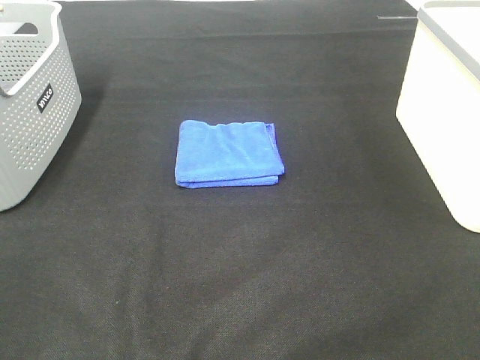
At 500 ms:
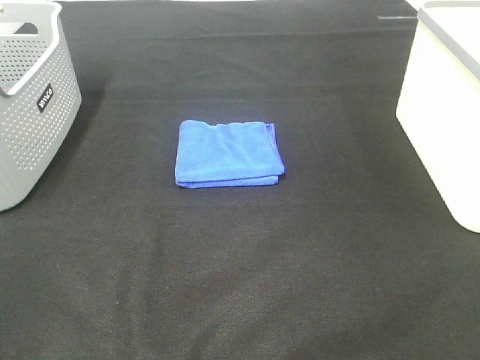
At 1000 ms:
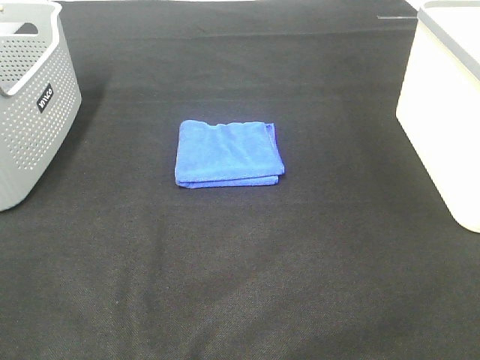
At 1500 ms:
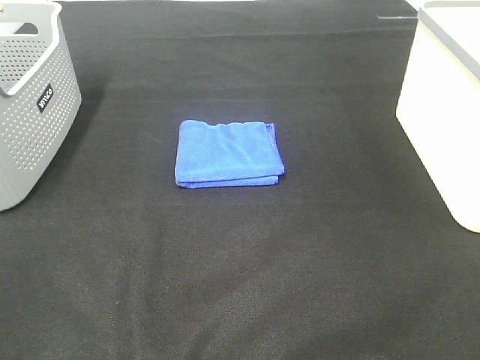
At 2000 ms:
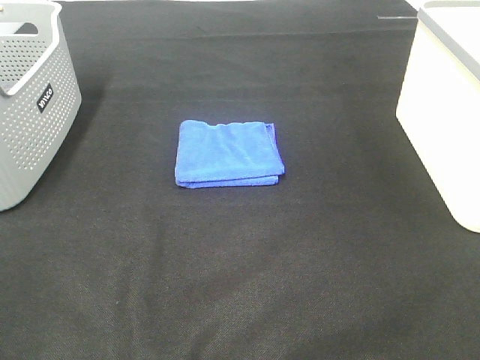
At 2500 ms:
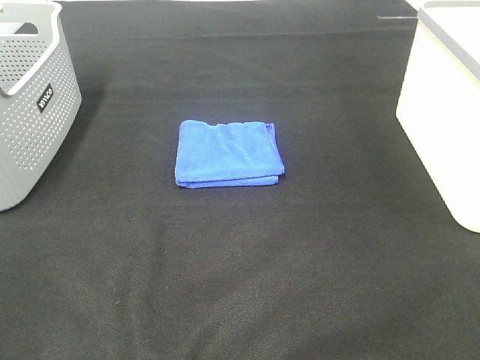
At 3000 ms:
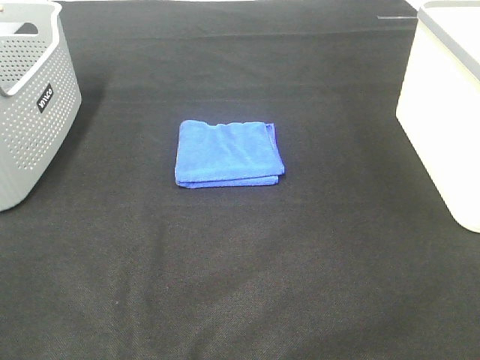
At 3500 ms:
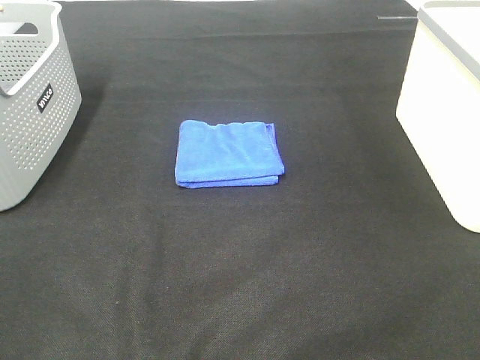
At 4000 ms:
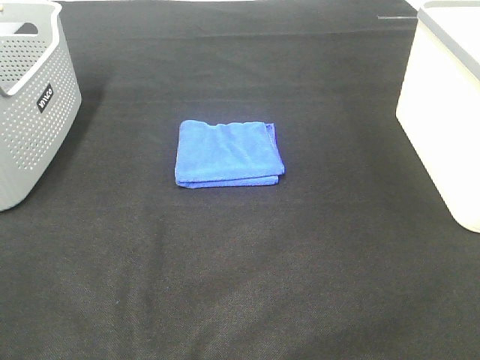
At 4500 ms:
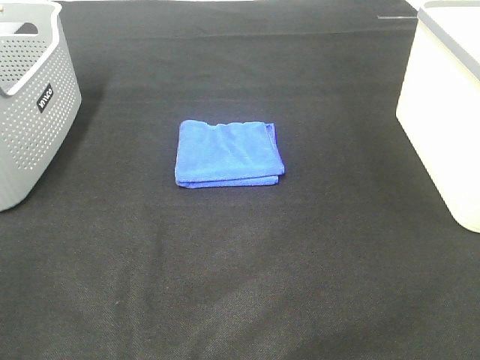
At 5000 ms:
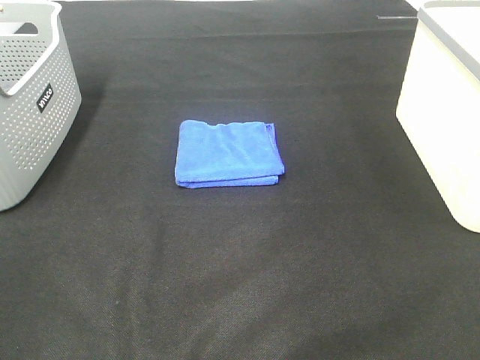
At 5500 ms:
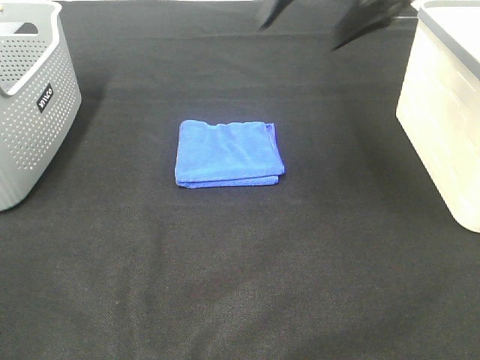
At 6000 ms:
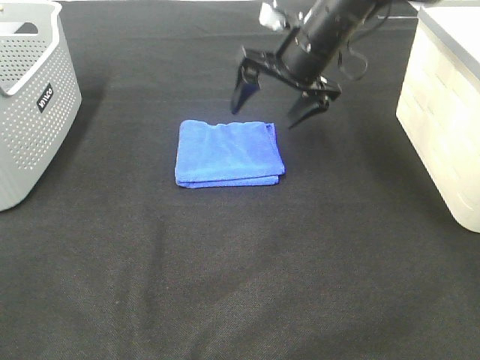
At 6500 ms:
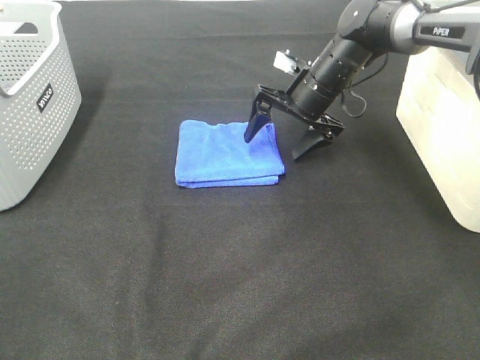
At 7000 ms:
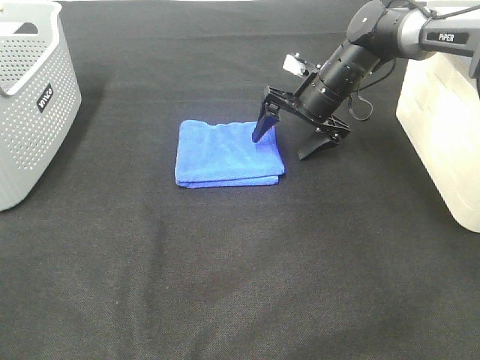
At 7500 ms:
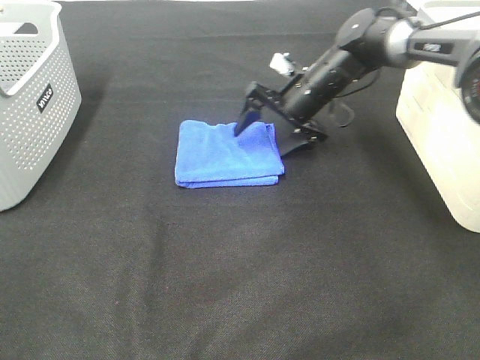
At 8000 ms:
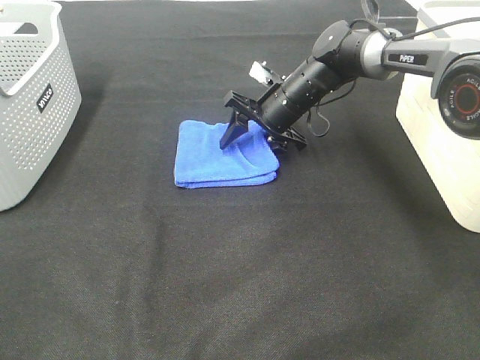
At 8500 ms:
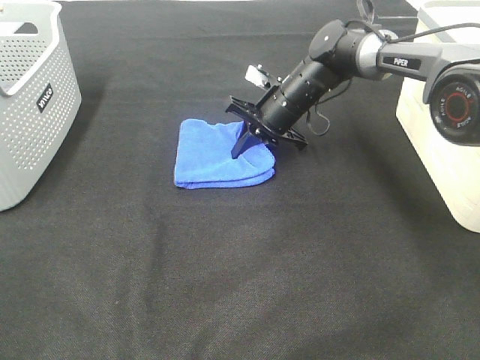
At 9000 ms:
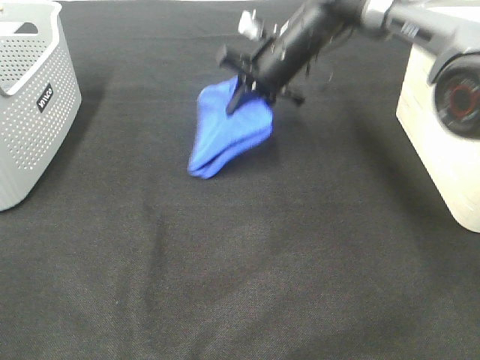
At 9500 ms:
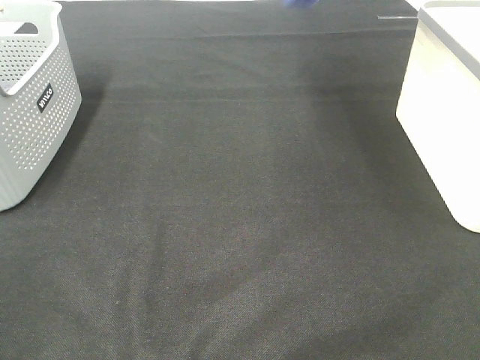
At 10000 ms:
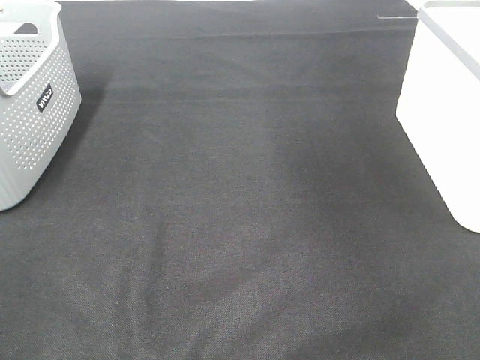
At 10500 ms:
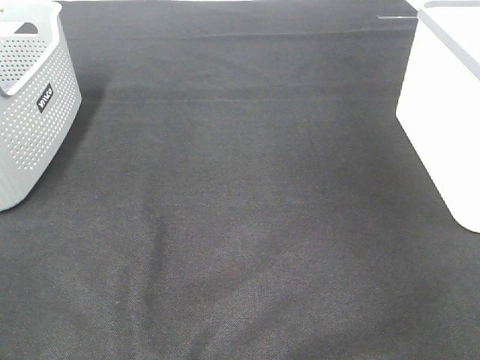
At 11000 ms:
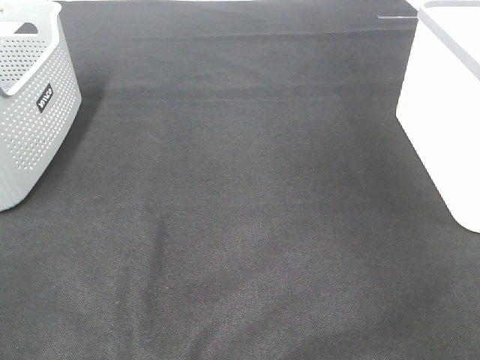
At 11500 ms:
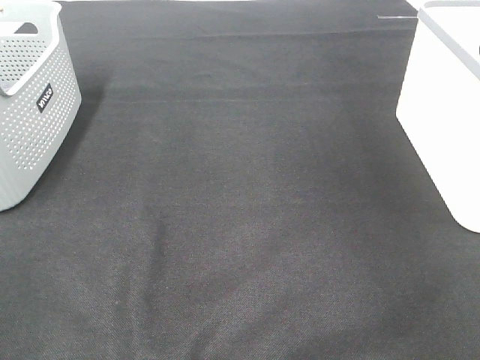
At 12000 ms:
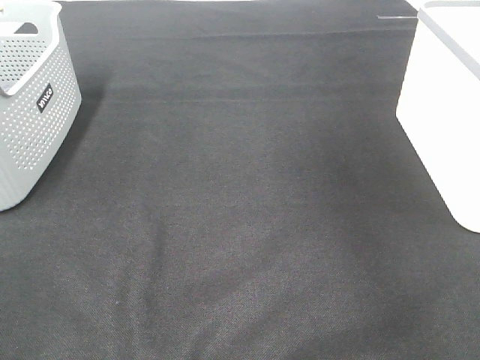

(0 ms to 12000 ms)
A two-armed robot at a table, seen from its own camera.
Step, 0 ms - 8000 ms: Right hand: grab the folded blue towel.
Step, 8500 ms - 11000 ms: Right hand: place the blue towel in right basket.
0 ms - 2000 ms: Both grippers stay about where they are.
4000 ms - 6000 ms: The right gripper goes about 40 cm forward and to the left.
6000 ms - 8000 ms: The right gripper travels downward by roughly 10 cm, and closes its fingers.
8000 ms - 10000 ms: The right gripper goes approximately 50 cm upward and to the right, and closes up.

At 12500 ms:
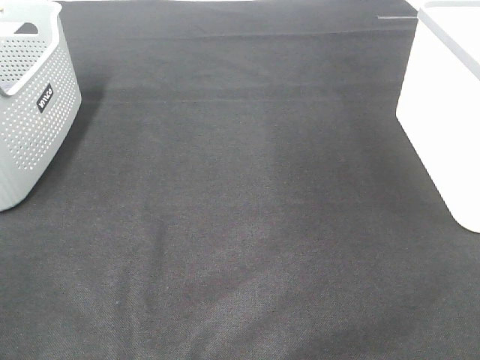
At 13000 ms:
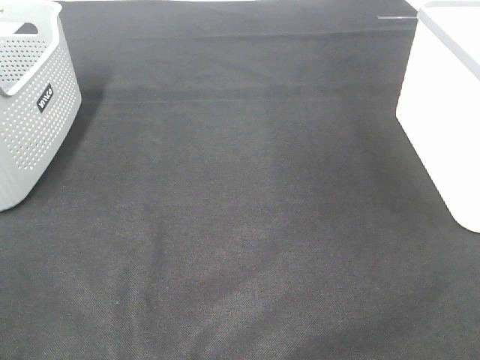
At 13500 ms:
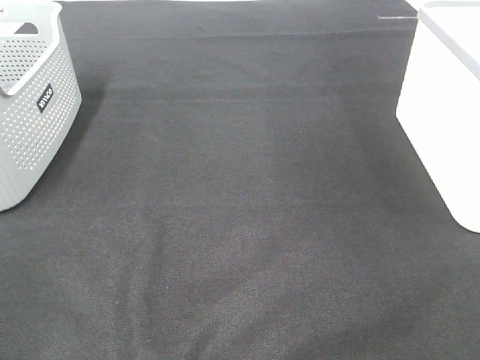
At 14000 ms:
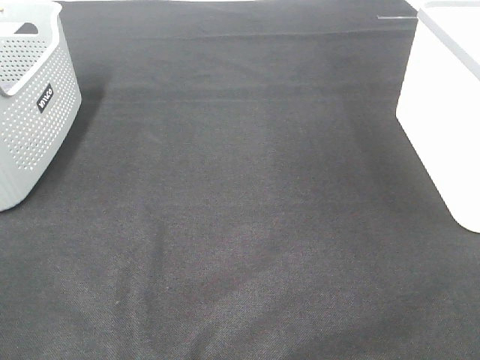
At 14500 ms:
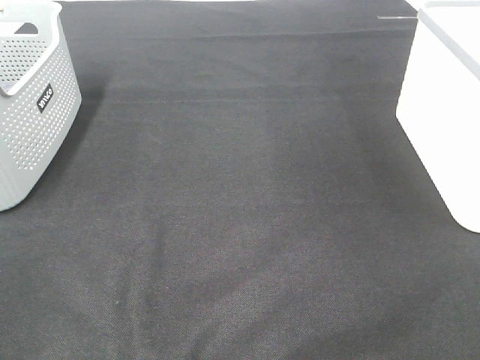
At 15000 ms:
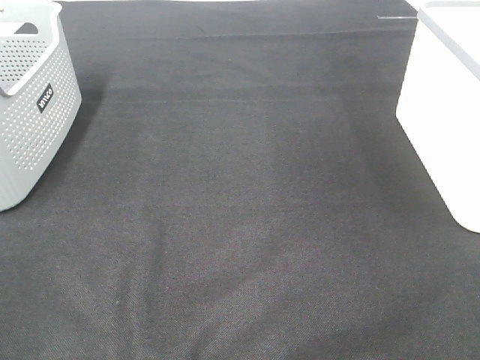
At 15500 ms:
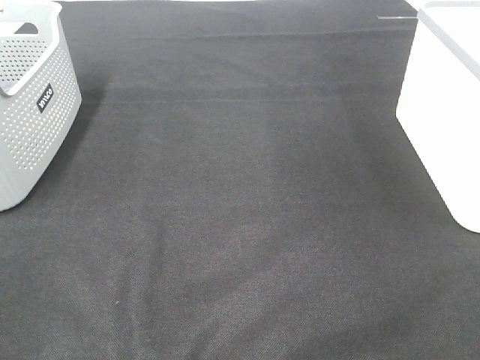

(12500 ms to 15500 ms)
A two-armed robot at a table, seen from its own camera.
14000 ms - 15500 ms: Neither gripper changes place.

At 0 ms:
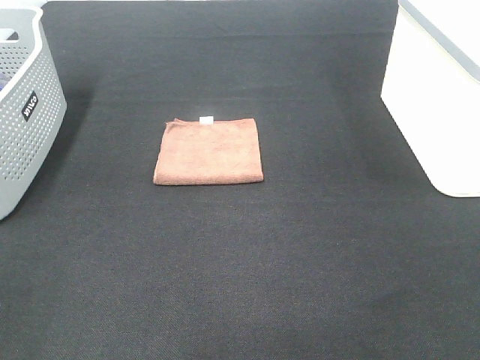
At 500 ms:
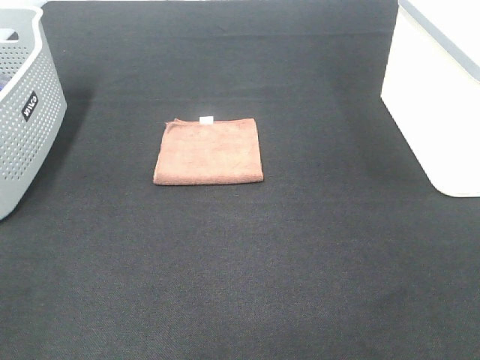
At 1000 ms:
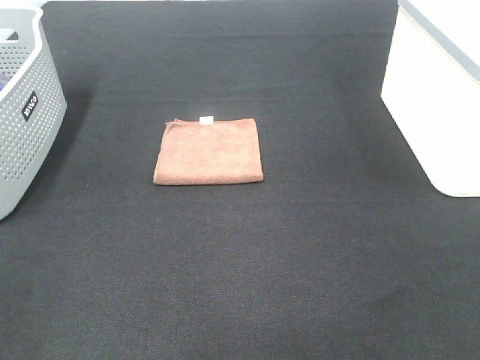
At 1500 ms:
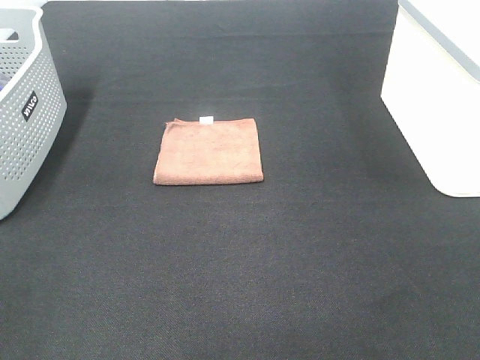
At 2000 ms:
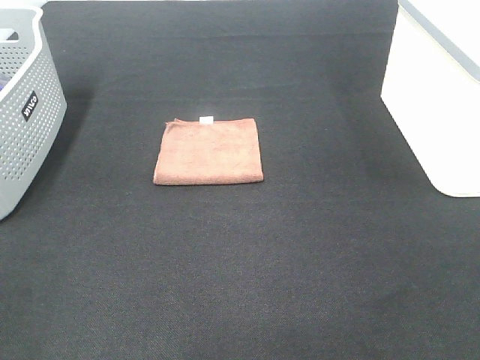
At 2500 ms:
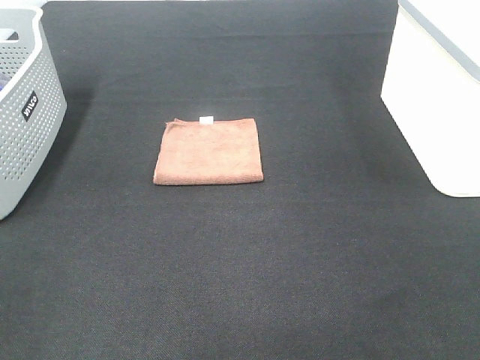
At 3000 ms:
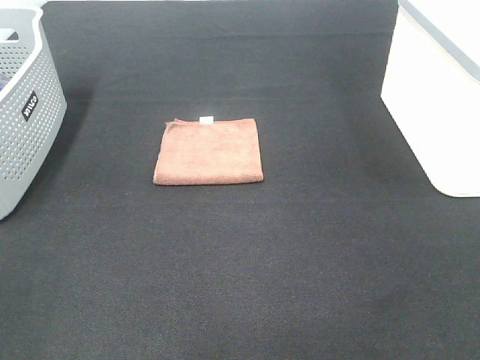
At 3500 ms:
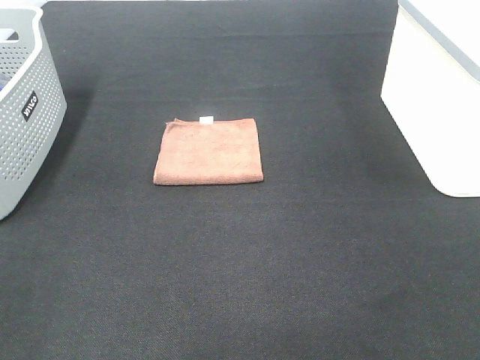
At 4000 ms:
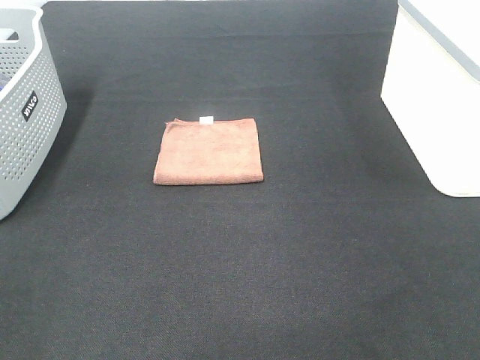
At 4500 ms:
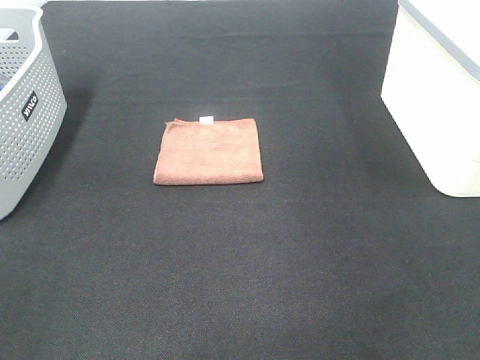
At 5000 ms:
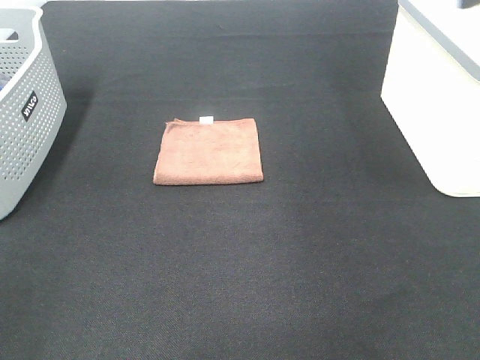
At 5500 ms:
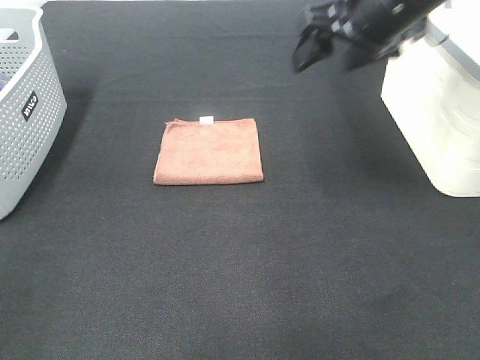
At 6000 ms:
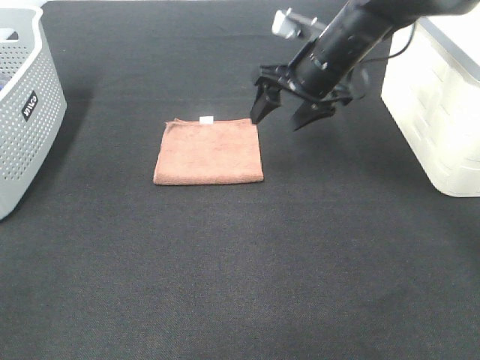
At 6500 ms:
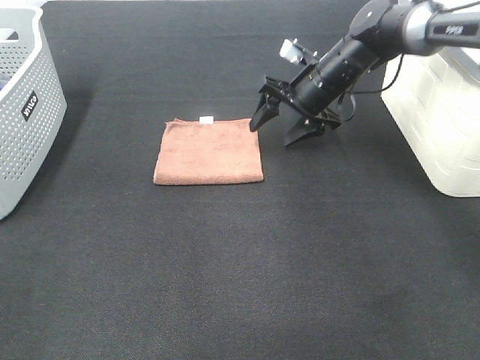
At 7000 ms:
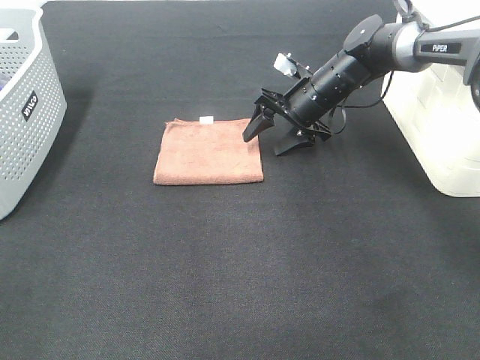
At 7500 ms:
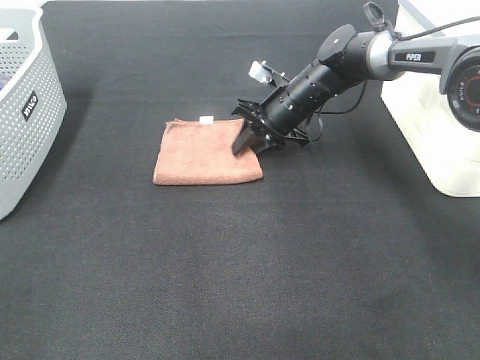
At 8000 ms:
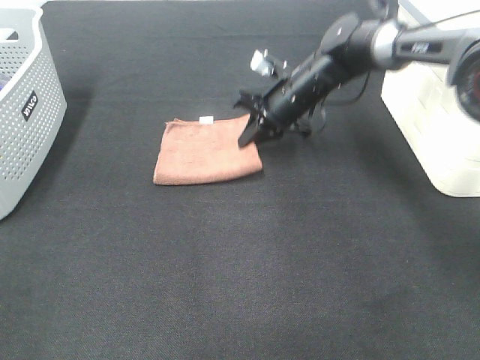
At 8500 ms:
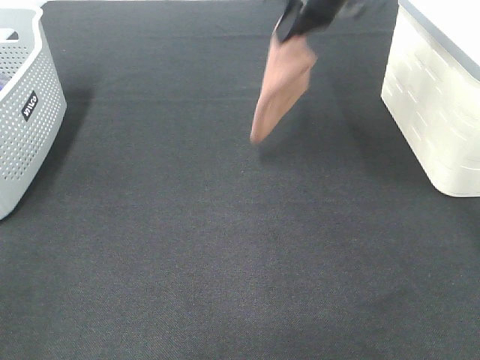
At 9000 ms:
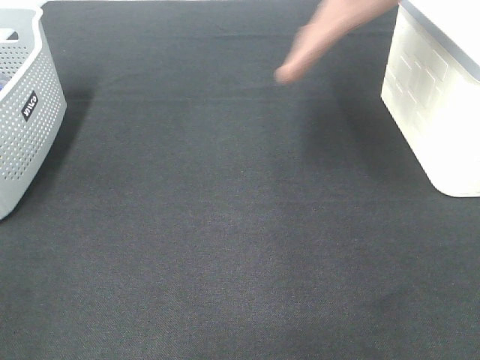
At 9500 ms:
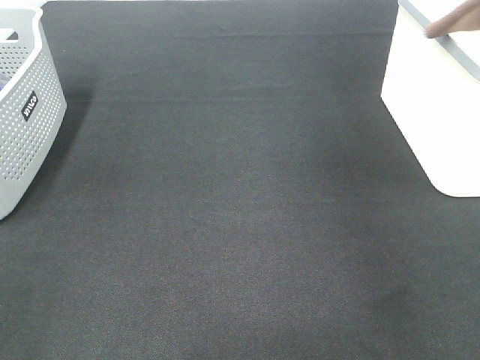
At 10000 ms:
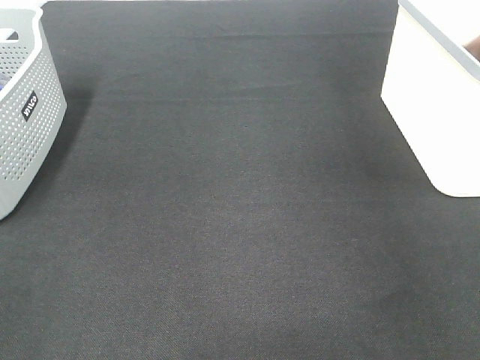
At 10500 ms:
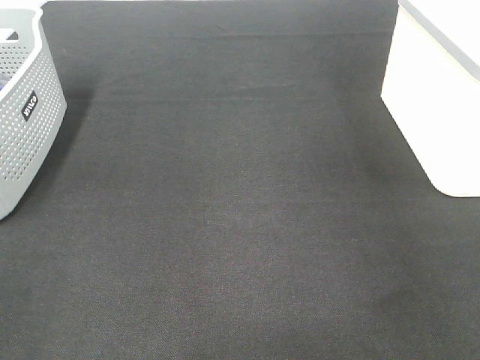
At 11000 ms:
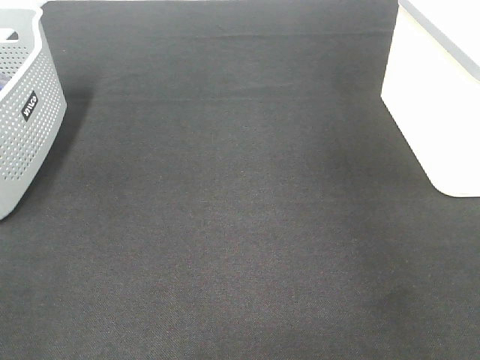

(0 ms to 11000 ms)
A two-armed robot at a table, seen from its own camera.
Step, 0 ms - 7500 ms: Right hand: grab the folded brown towel.
0 ms - 3500 ms: Both grippers stay put.
3500 ms - 5500 ms: The right gripper heads forward, covering about 35 cm.
5500 ms - 7500 ms: The right gripper is displaced downward and forward by approximately 20 cm, and closes its fingers.
7500 ms - 9000 ms: The right gripper shifts roughly 35 cm upward and to the right.
9000 ms - 11000 ms: The right gripper goes some 10 cm to the right, and opens.
